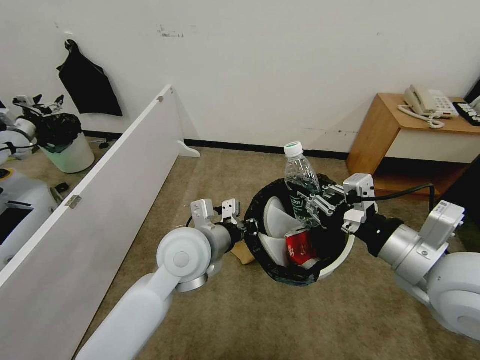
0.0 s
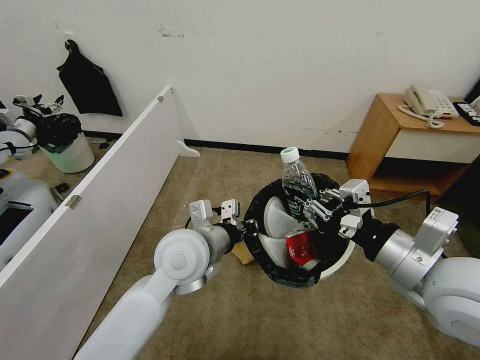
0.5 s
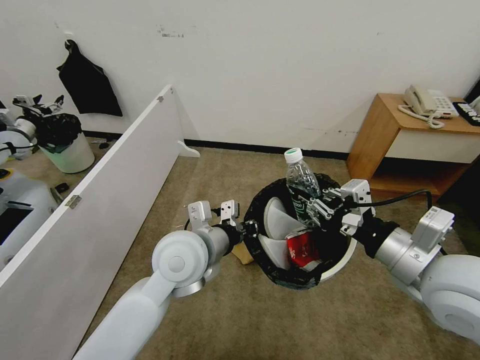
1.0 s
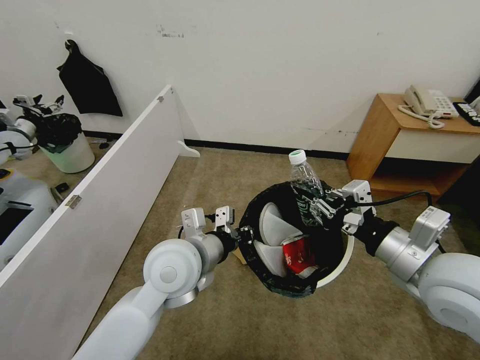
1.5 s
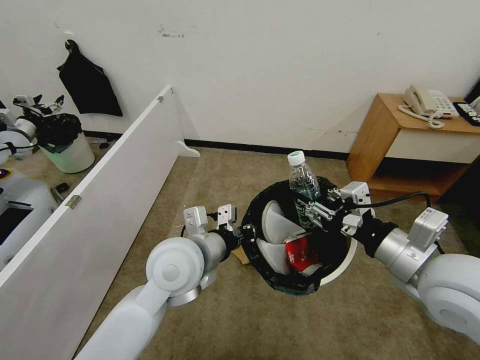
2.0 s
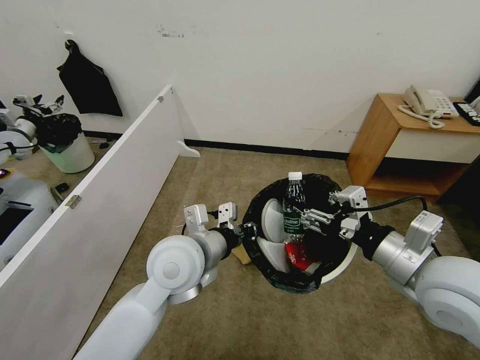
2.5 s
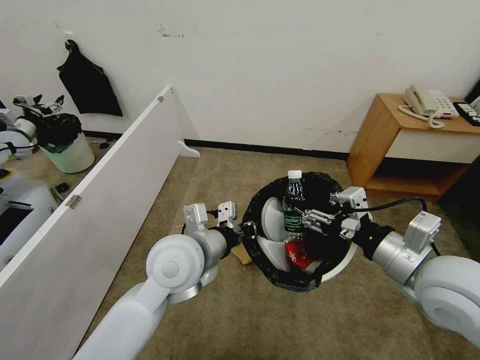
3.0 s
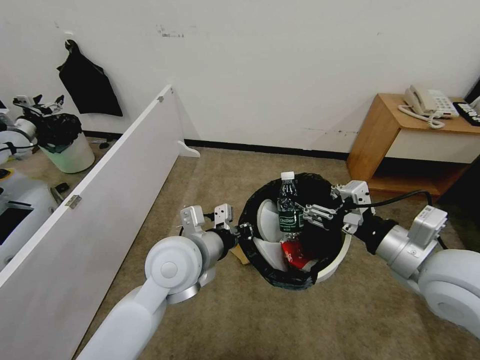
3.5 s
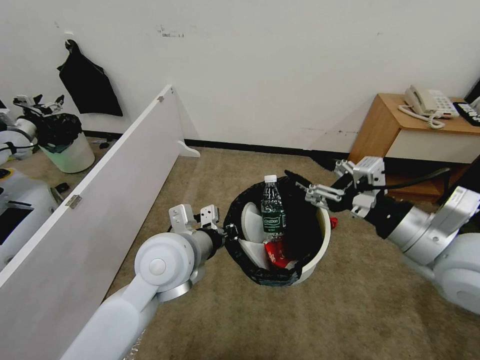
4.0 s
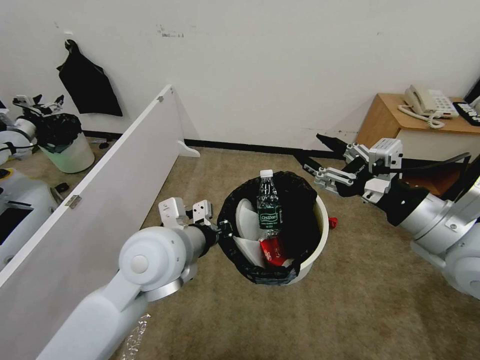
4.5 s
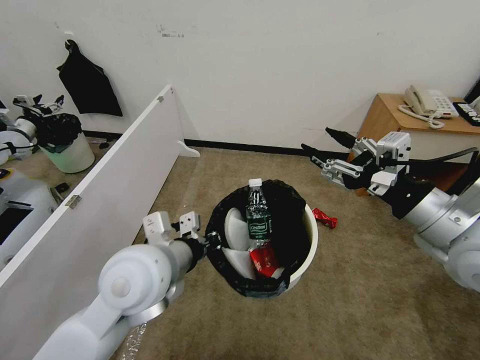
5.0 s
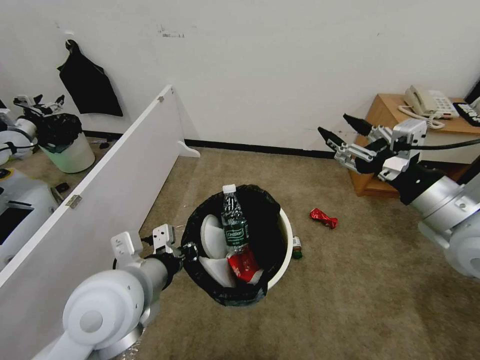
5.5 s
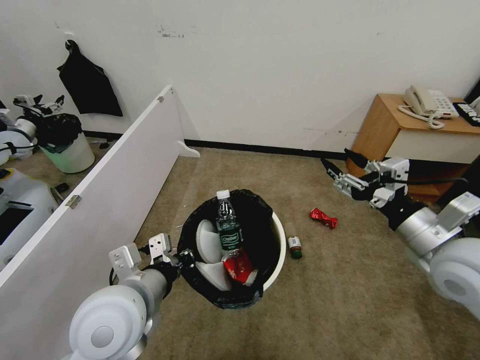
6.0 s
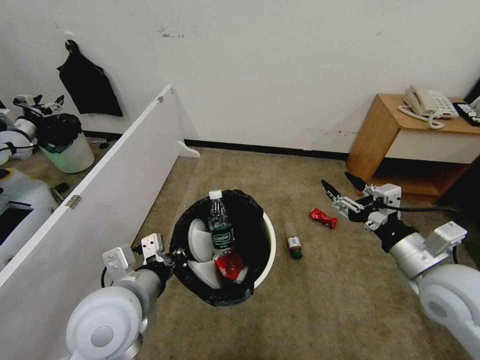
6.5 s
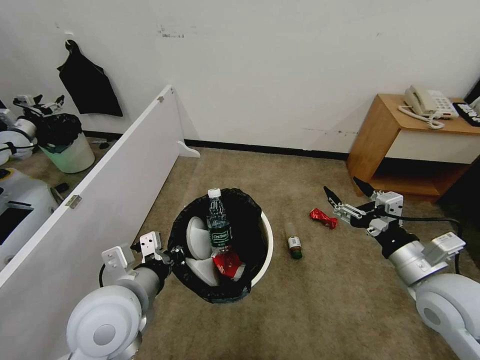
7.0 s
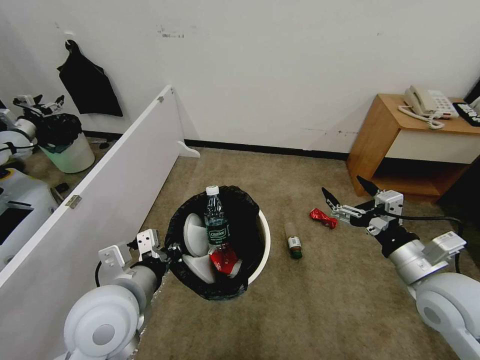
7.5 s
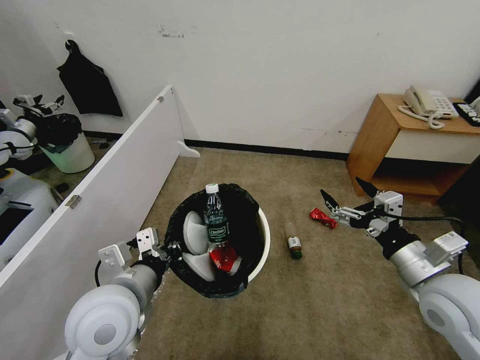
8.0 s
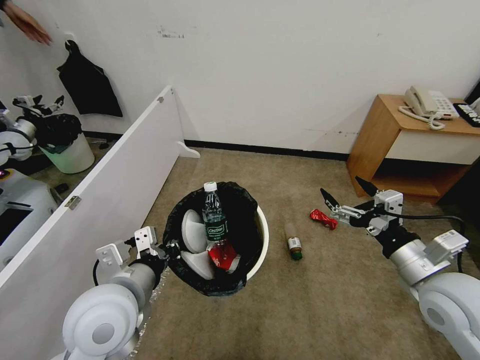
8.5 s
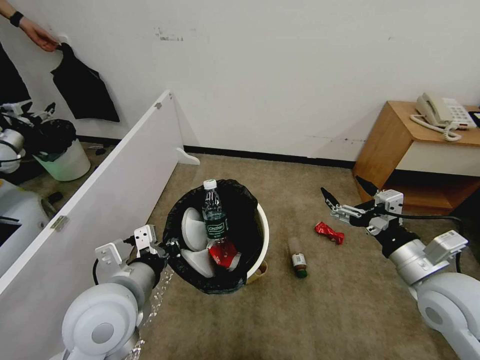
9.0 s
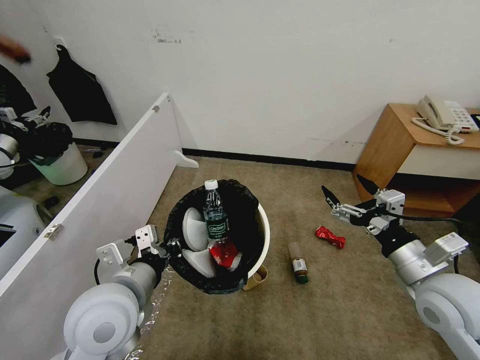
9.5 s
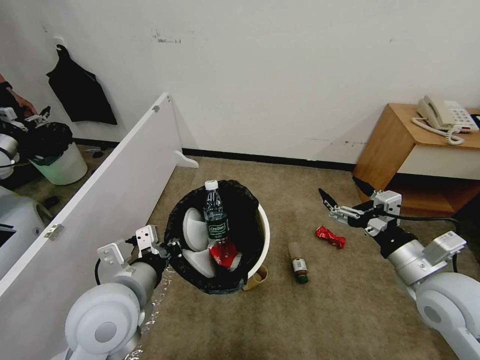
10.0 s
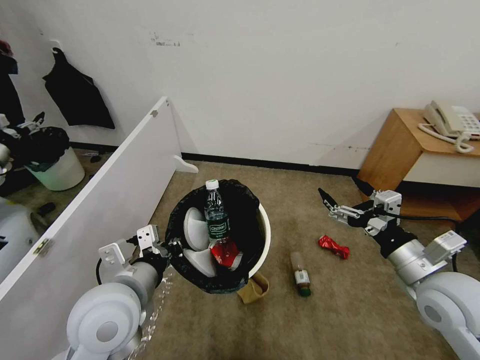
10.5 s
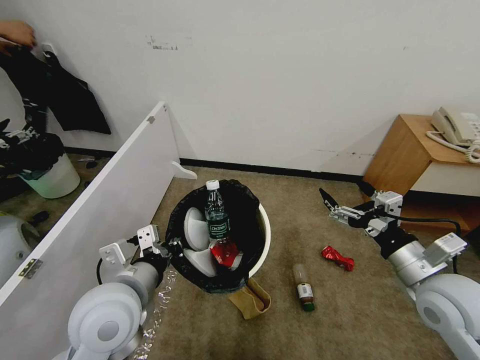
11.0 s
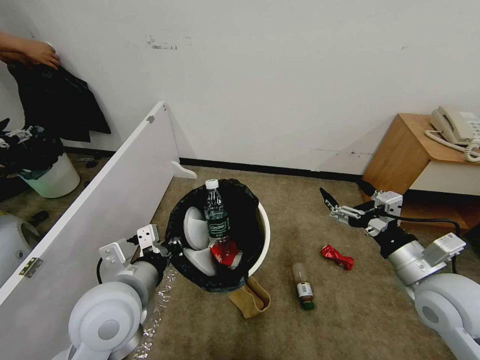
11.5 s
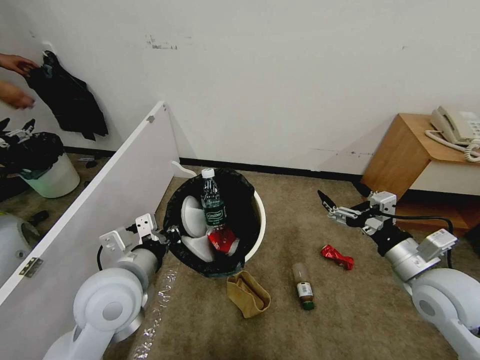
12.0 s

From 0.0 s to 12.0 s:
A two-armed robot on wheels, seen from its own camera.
Task of the whole recording: Pick up the trash bin, then pick up the garbage from the floor and place it into the trash bin.
From 0.0 s to 4.0 s: The grippers move only a little.
From 4.0 s to 6.0 s: The right gripper changes place by roughly 5 cm; the left gripper goes about 10 cm backward and to the left.
From 6.0 s to 8.0 s: The right gripper heads downward, covering approximately 5 cm.
From 8.0 s to 10.0 s: Both grippers stay about where they are.

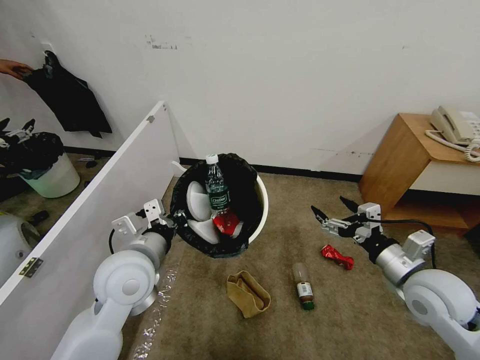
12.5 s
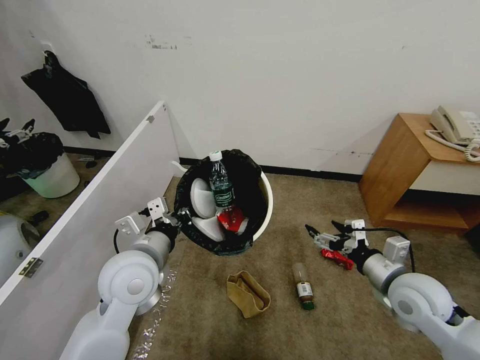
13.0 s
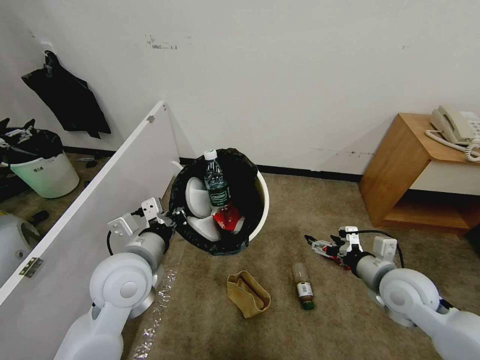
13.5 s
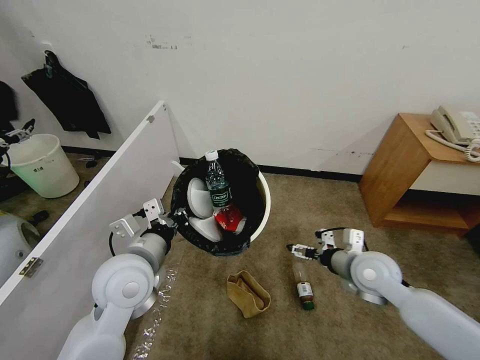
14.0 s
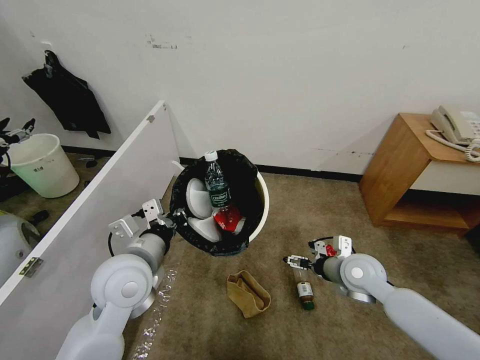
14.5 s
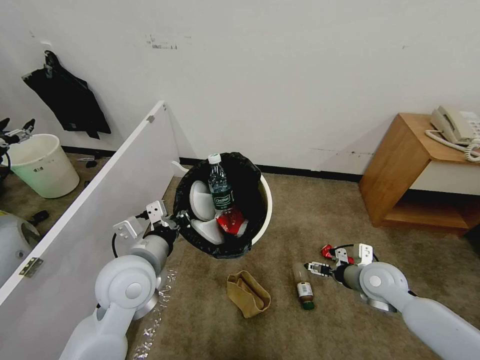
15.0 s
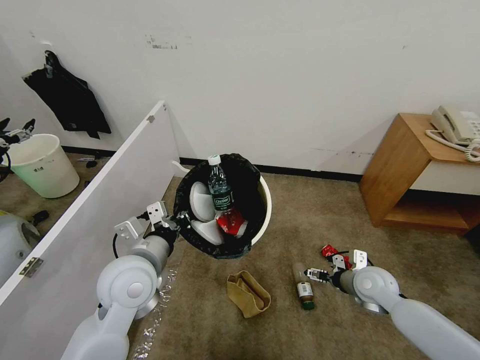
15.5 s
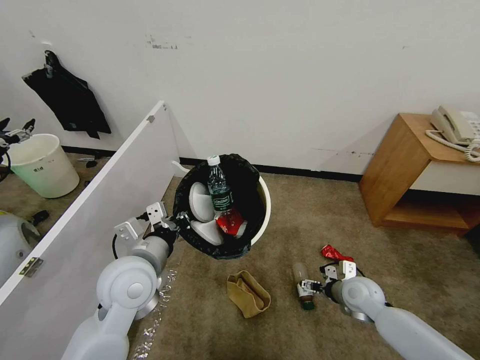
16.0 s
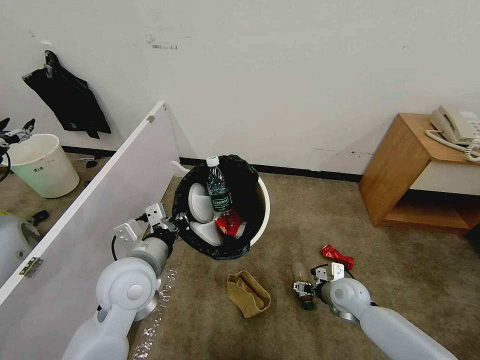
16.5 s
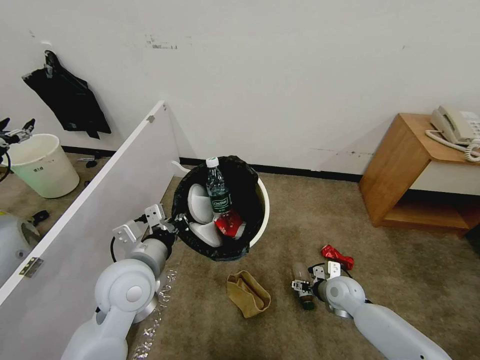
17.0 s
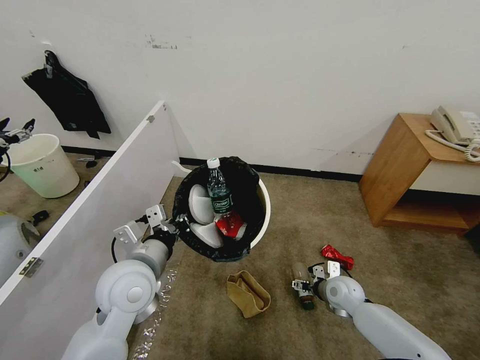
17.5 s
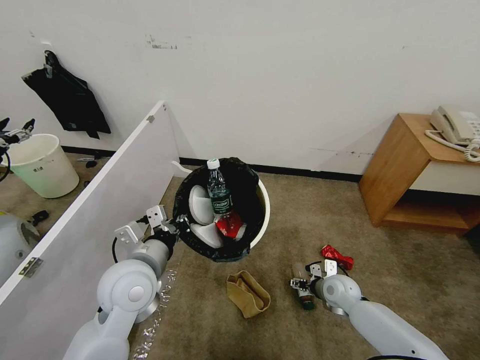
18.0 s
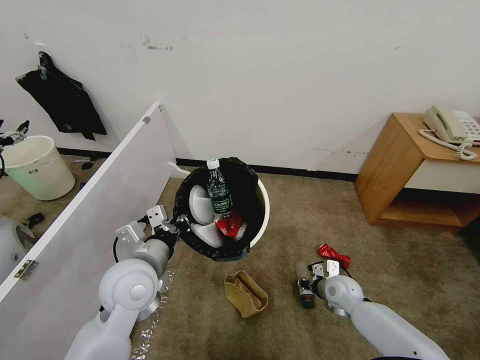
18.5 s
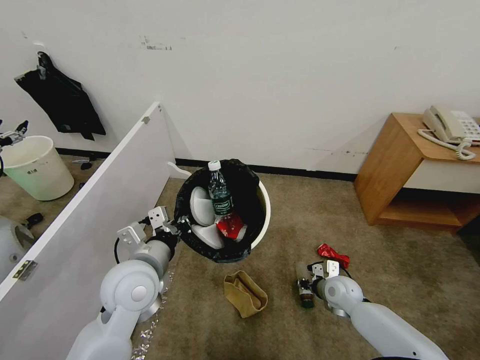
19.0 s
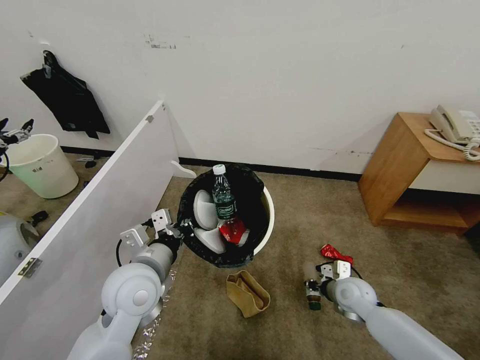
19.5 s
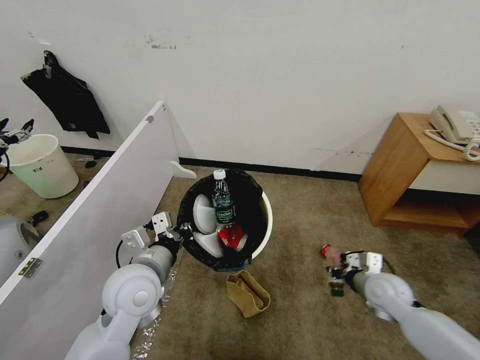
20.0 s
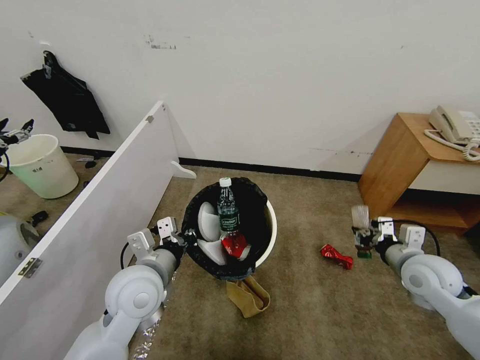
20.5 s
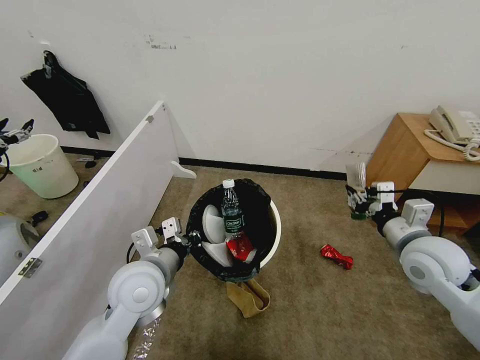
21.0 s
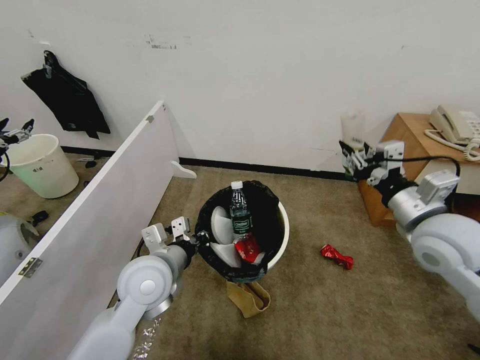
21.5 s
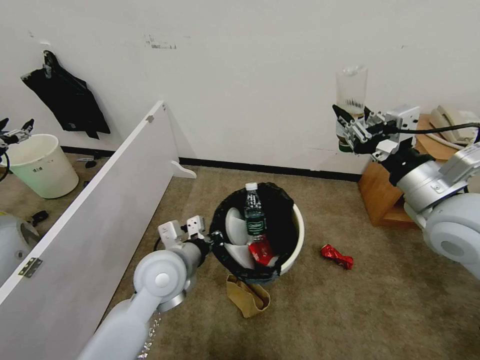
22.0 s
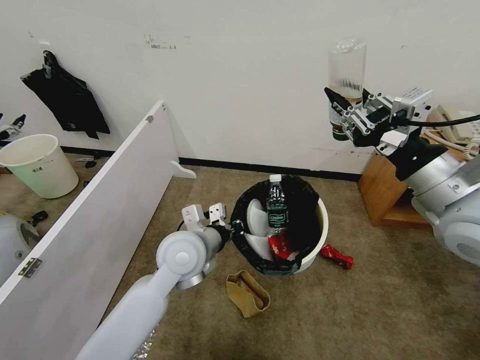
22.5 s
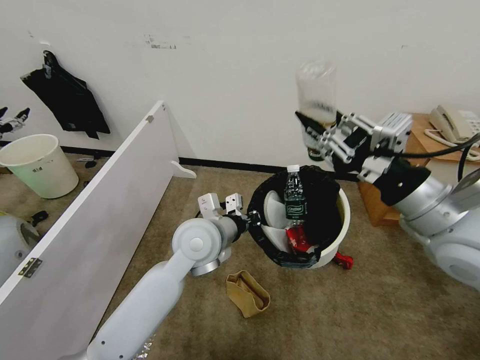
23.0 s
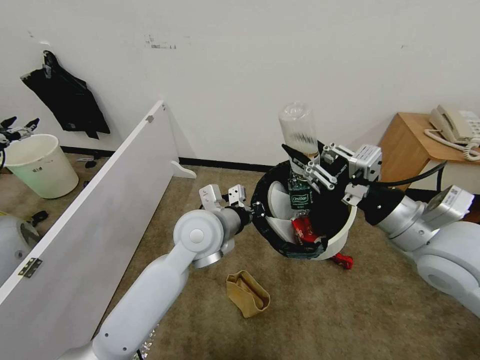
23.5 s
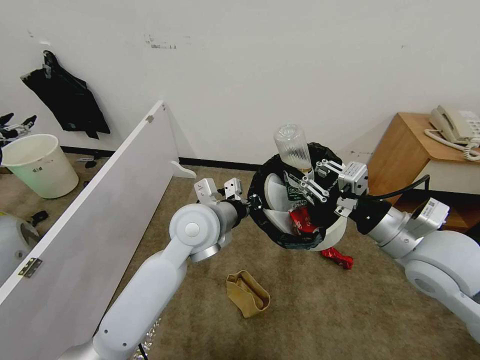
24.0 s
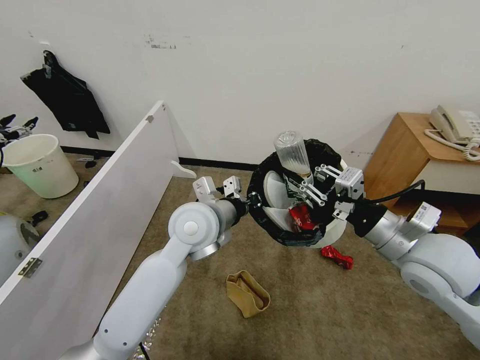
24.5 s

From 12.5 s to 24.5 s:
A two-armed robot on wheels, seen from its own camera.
Task of the whole recording: Pick up the trash bin, then pick up the garbage from the floor and place it into the trash bin.
From 12.5 s to 14.5 s: The right gripper shifts approximately 15 cm downward, forward and to the left.
From 14.5 s to 16.5 s: The right gripper is displaced downward by some 10 cm.
From 16.5 s to 18.5 s: The right gripper closes.
From 18.5 s to 20.5 s: The right gripper goes approximately 20 cm upward and to the right.
From 20.5 s to 22.5 s: The right gripper heads upward, covering roughly 20 cm; the left gripper heads to the right and forward, covering some 10 cm.
From 22.5 s to 24.5 s: The left gripper ends up roughly 5 cm from where it was, while the right gripper heads downward, covering about 10 cm.

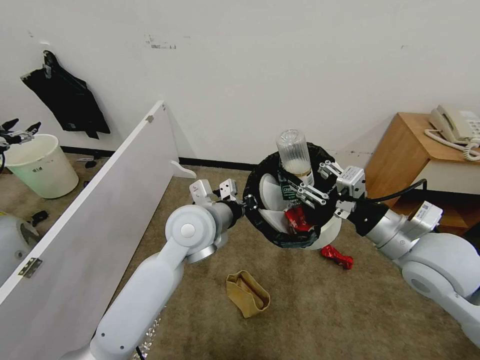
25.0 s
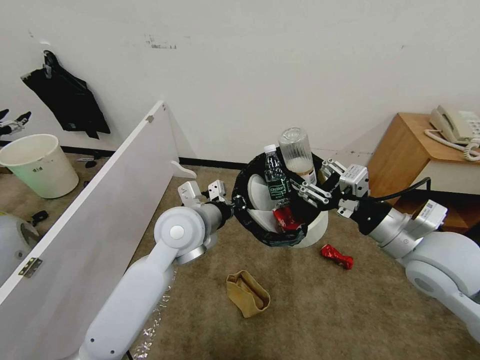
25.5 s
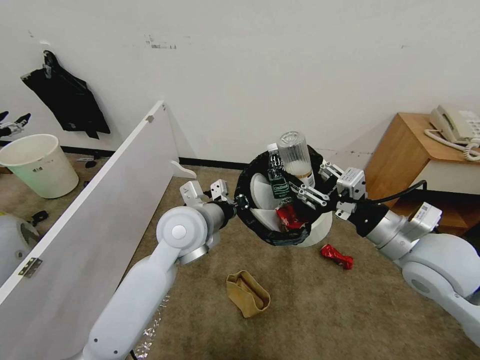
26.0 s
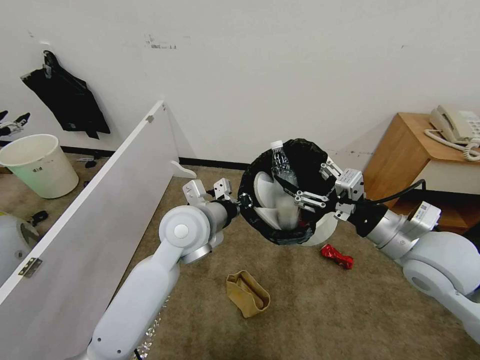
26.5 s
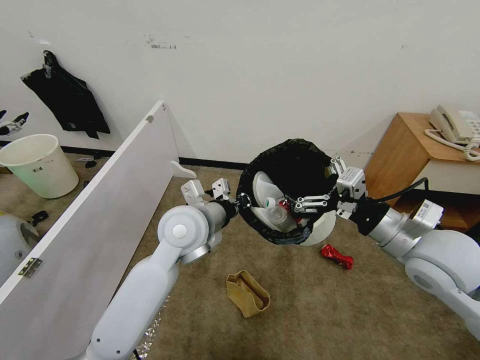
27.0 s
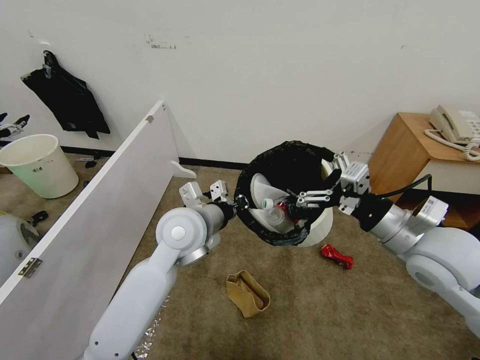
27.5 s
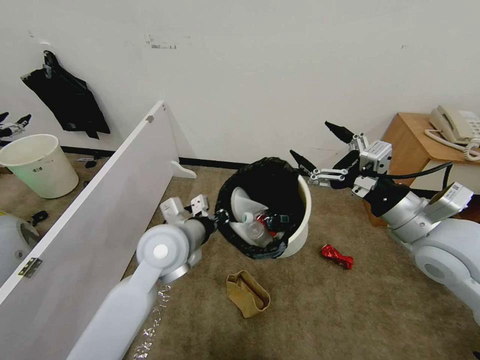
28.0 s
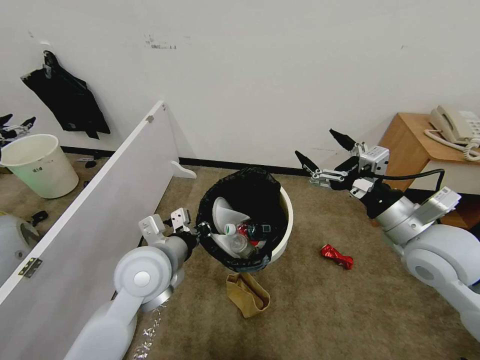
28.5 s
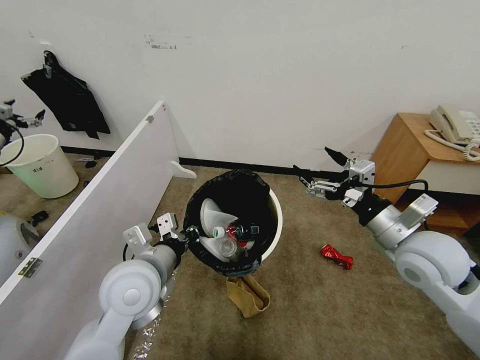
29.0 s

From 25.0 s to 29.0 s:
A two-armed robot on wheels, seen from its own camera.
Task of the whole recording: Pick up the trash bin, then pick up the garbage from the floor and place it into the trash bin.
From 25.0 s to 27.0 s: The right gripper opens its fingers.
From 27.0 s to 29.0 s: The left gripper shifts roughly 15 cm backward and to the left.
